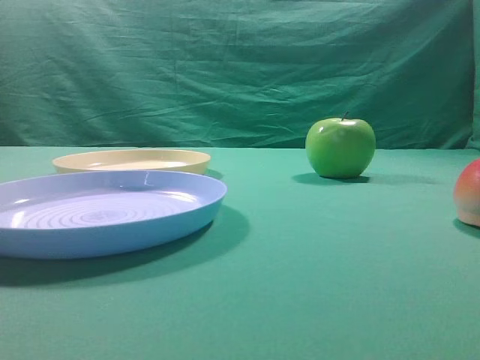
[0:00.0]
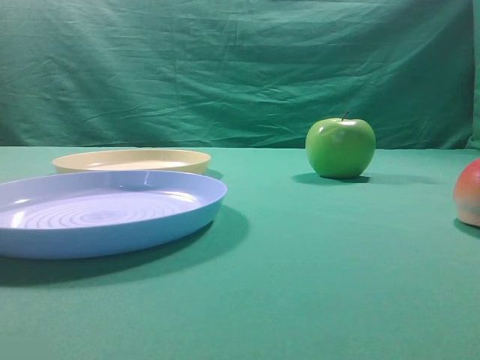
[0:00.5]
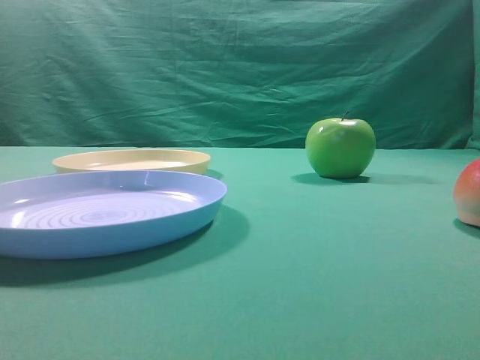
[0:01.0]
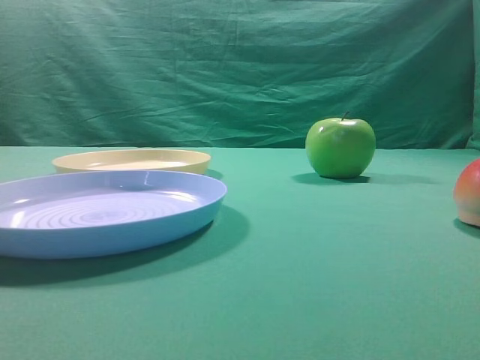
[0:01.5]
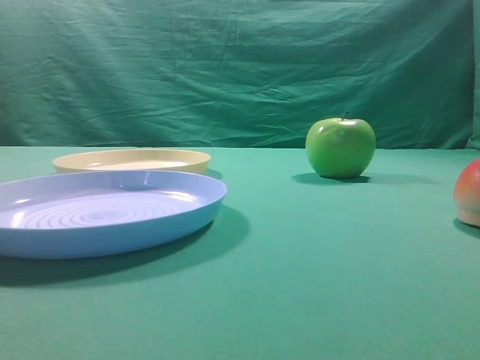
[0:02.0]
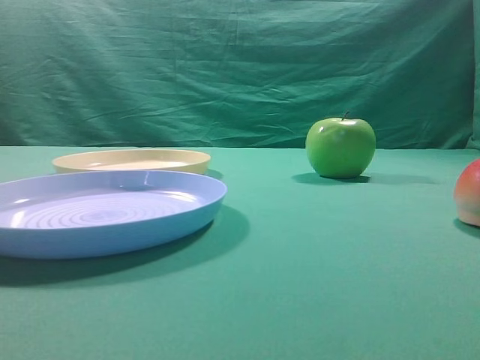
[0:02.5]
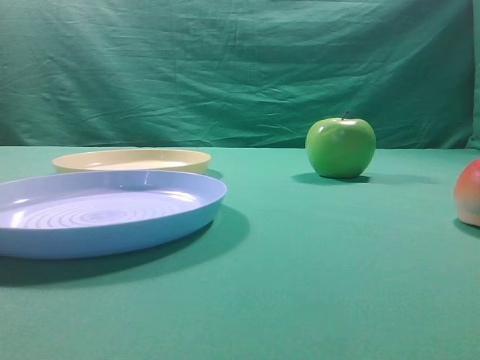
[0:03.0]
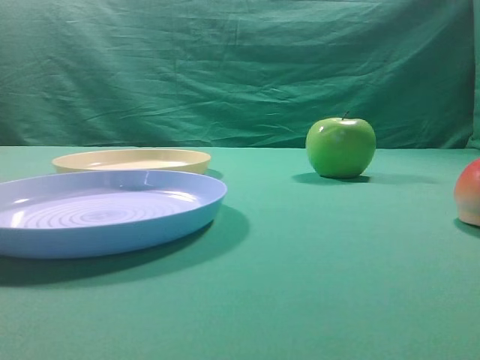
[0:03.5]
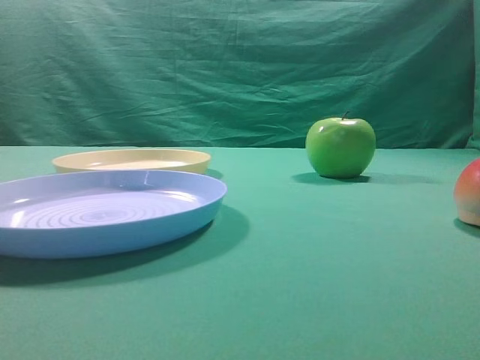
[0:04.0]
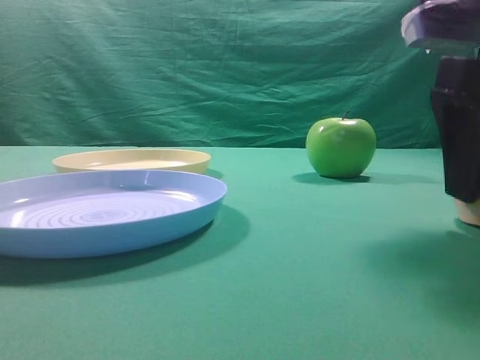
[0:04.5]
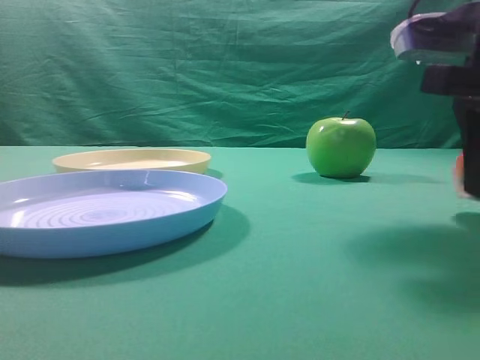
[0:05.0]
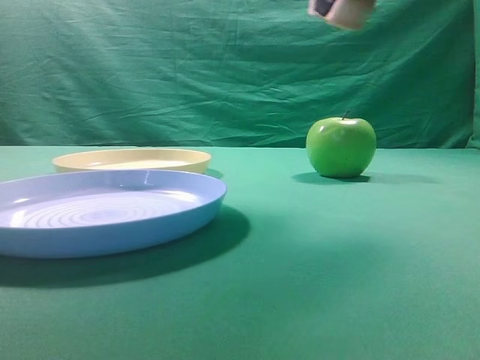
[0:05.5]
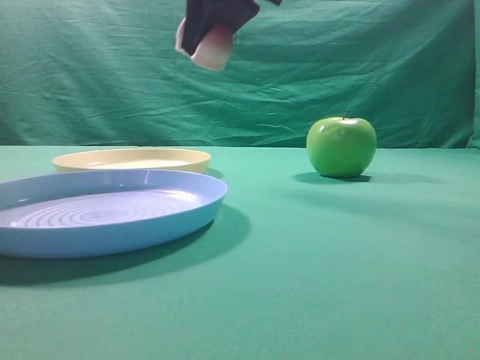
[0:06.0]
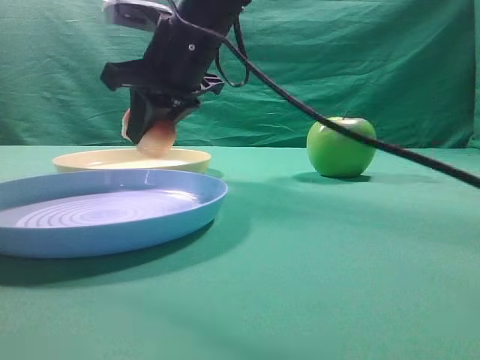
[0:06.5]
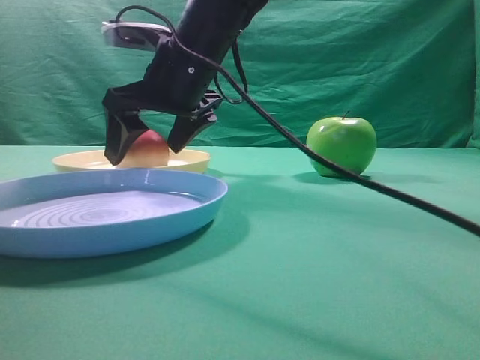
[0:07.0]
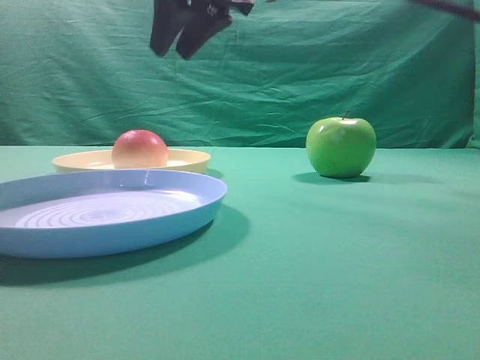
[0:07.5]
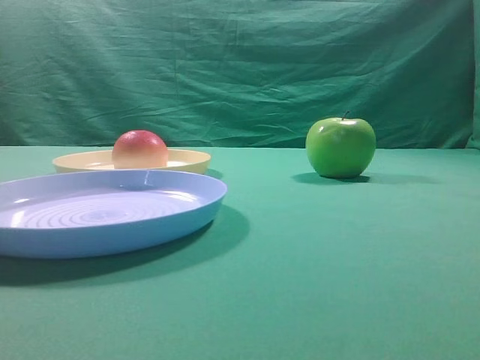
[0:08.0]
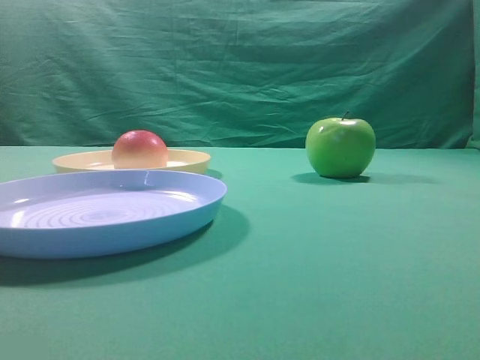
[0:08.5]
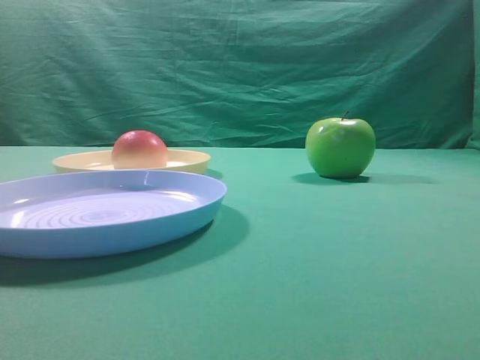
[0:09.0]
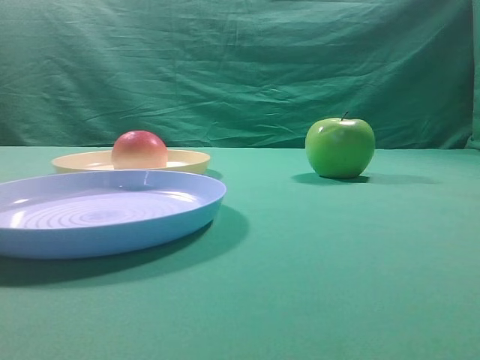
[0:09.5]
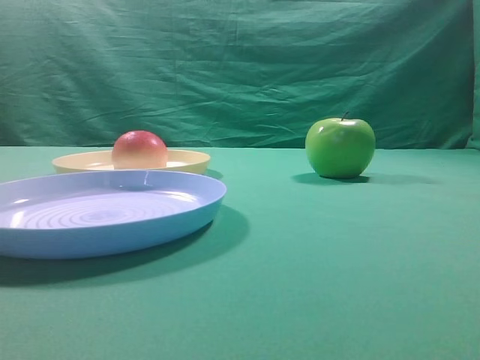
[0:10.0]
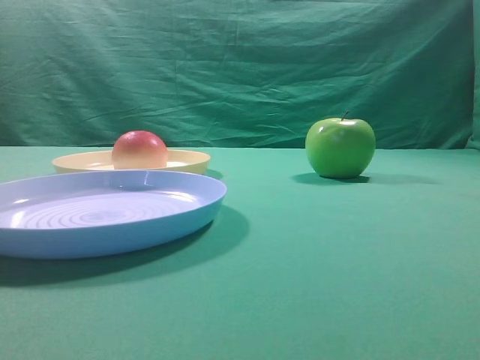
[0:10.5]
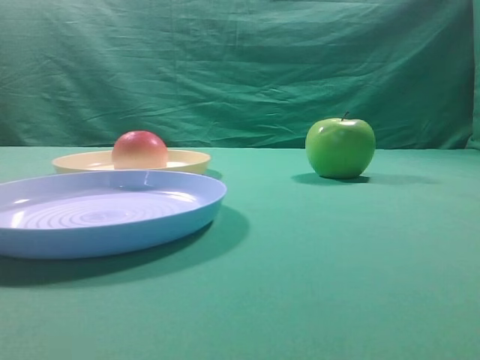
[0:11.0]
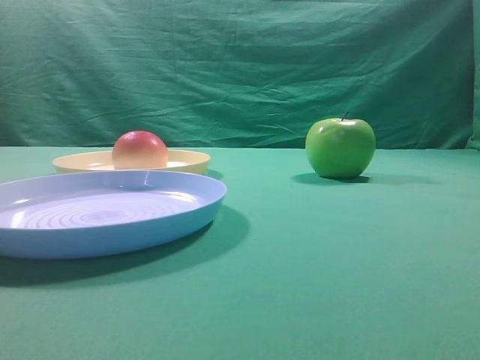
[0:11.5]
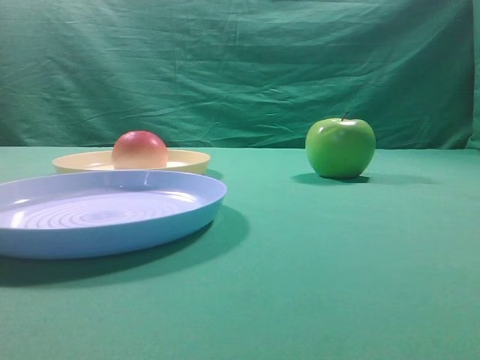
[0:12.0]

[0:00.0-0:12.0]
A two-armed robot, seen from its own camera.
Step, 0:05.5 to 0:07.0: Place the picked object on the yellow plate.

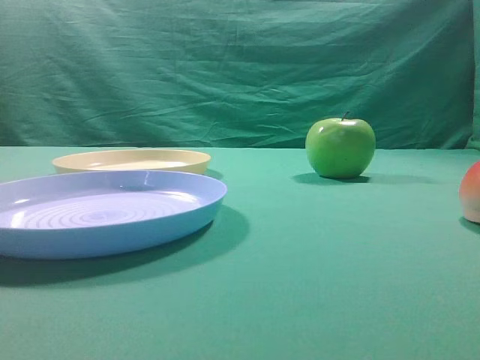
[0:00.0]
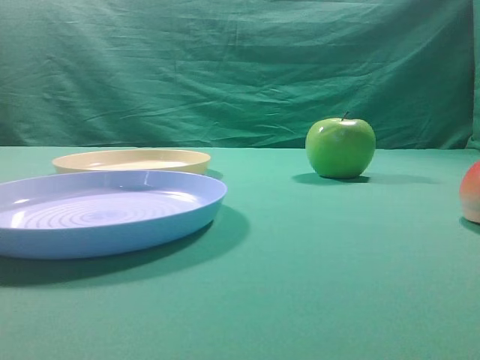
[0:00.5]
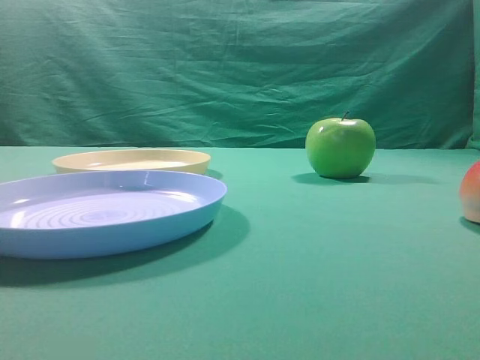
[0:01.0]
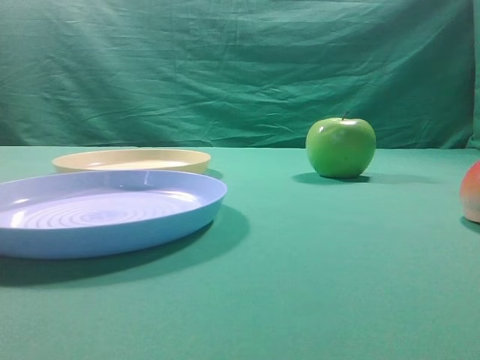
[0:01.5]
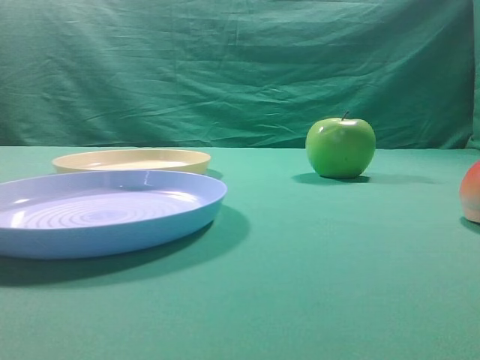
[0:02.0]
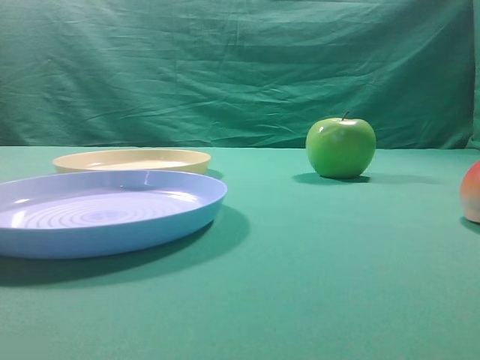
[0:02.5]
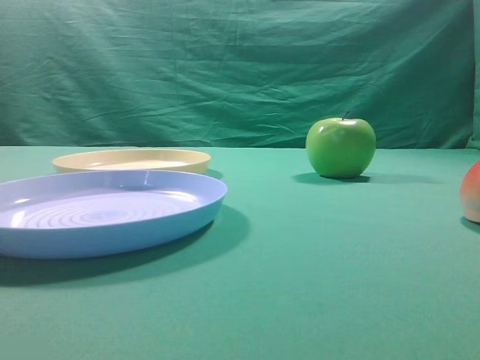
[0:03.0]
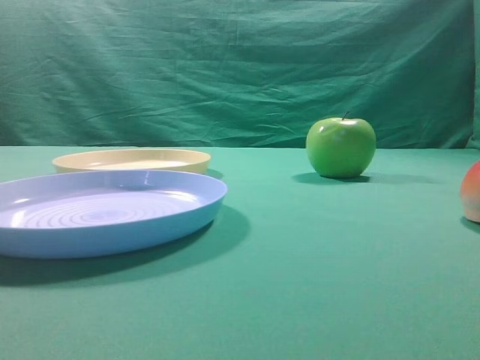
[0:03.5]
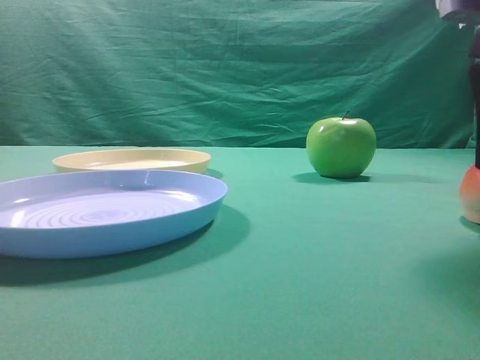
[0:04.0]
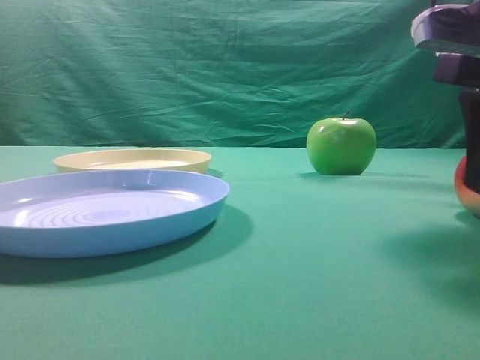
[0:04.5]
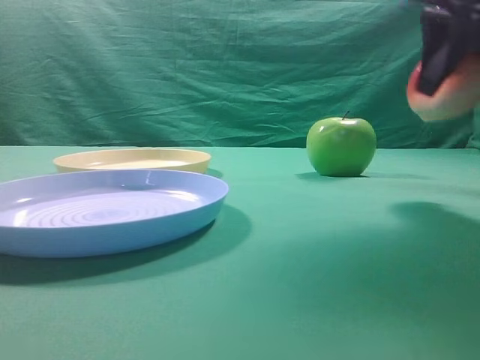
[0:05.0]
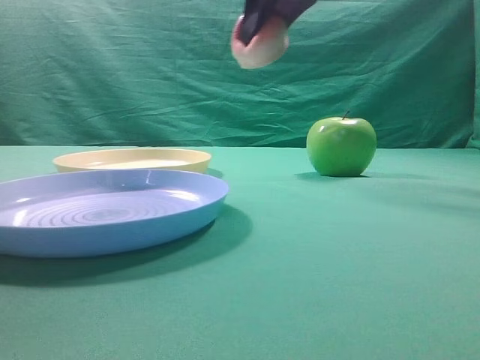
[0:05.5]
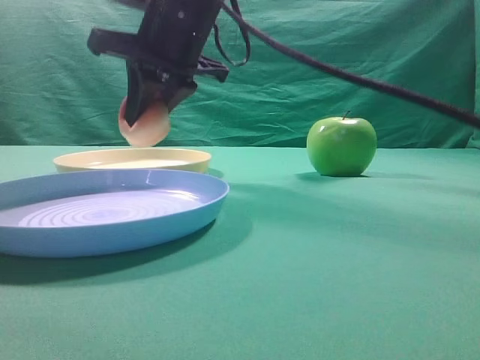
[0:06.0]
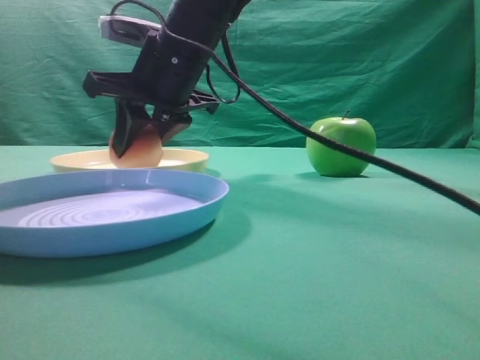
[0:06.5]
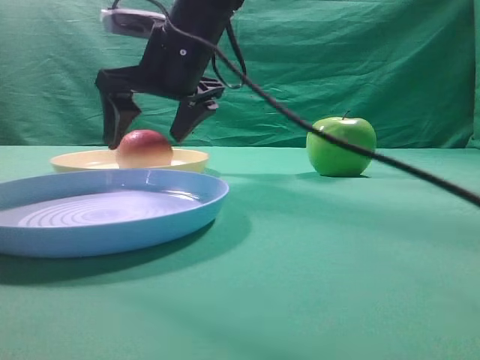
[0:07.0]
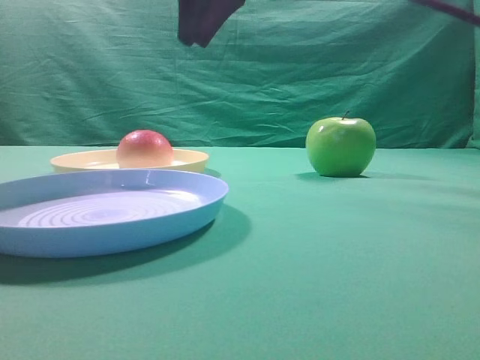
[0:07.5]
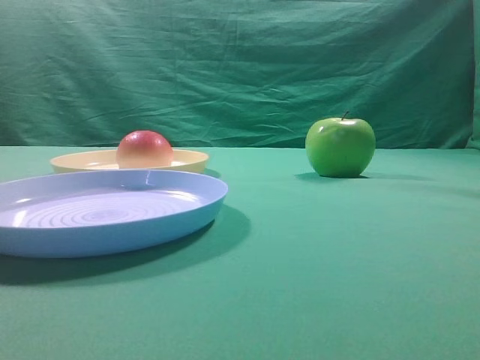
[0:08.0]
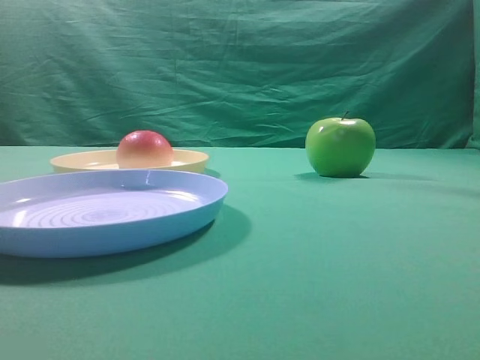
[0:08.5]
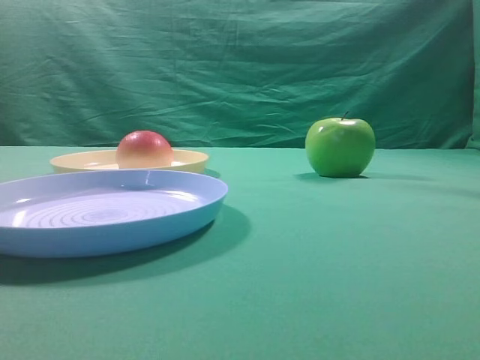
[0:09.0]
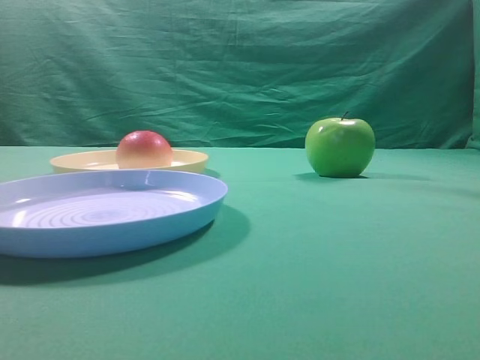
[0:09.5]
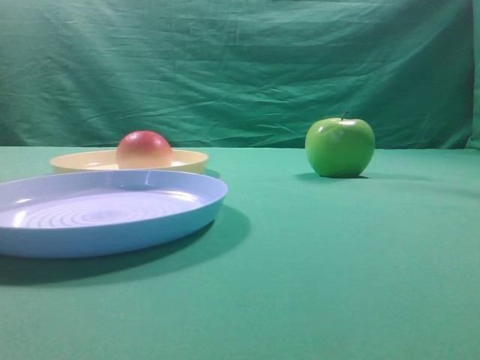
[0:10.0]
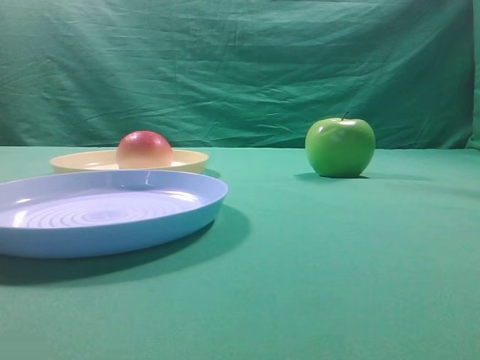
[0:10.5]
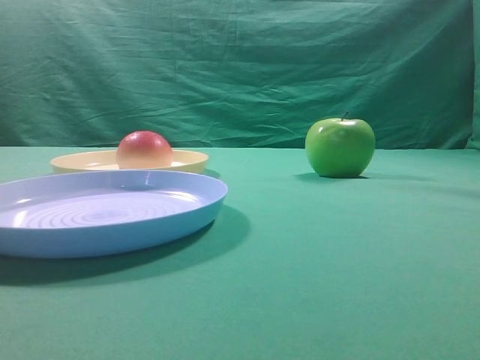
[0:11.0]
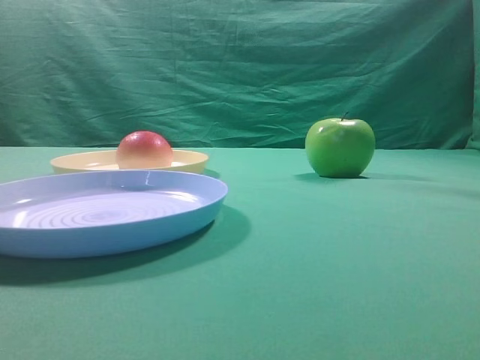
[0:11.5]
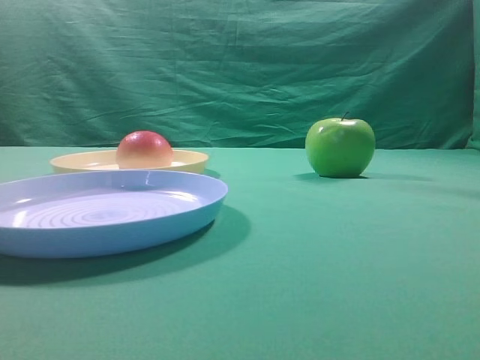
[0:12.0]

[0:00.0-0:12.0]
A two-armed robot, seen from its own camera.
Step, 0:05.0 to 0:07.0: Place the picked object on the yellow plate.
